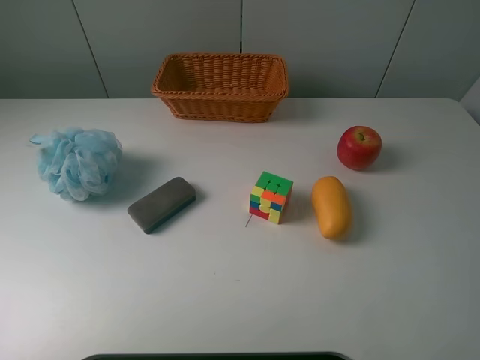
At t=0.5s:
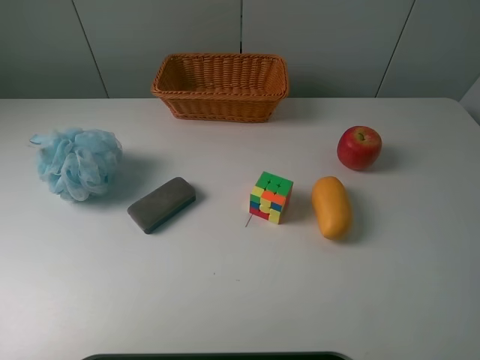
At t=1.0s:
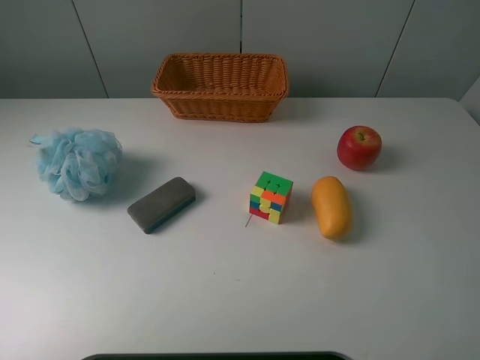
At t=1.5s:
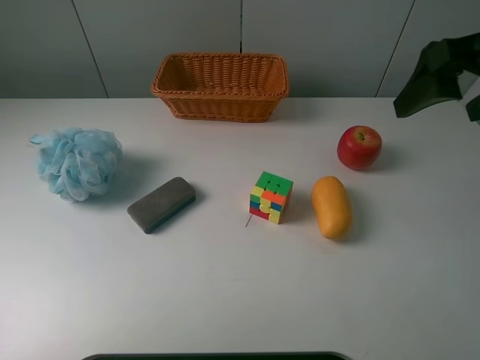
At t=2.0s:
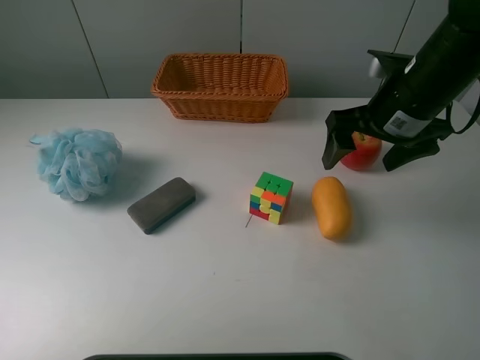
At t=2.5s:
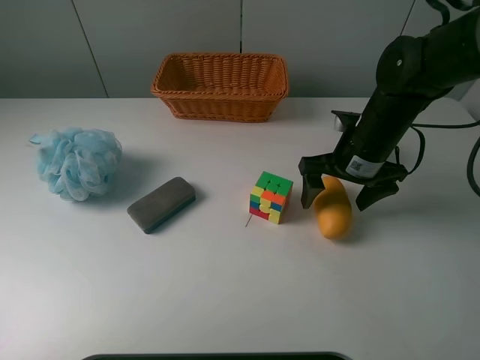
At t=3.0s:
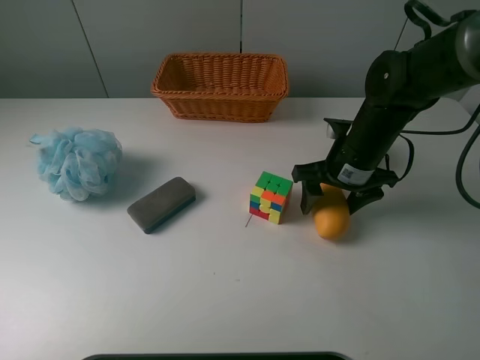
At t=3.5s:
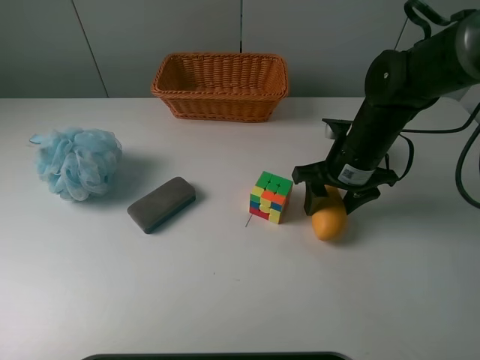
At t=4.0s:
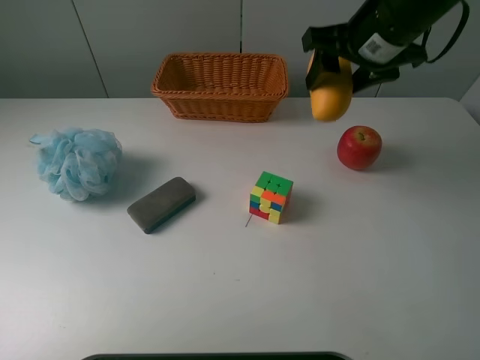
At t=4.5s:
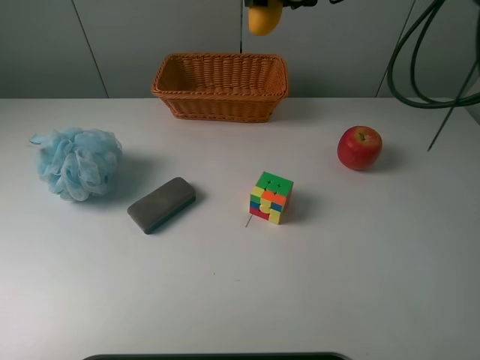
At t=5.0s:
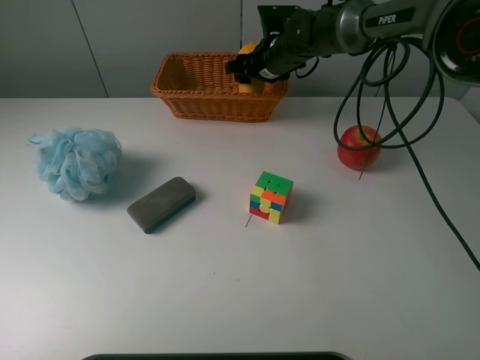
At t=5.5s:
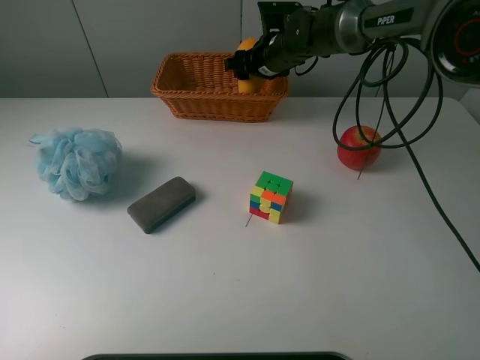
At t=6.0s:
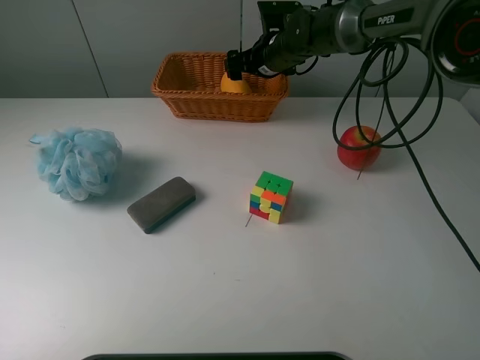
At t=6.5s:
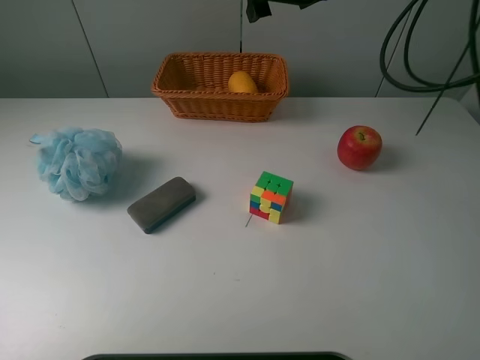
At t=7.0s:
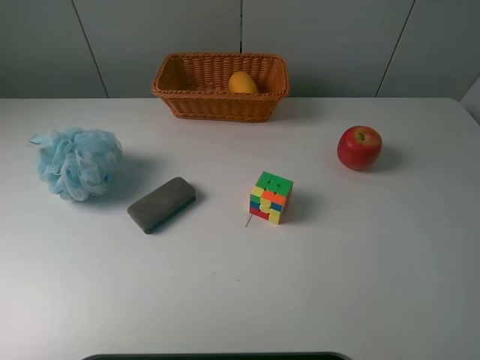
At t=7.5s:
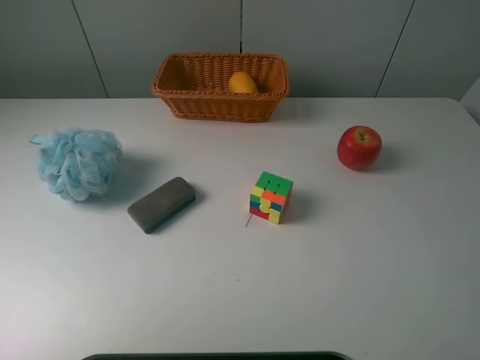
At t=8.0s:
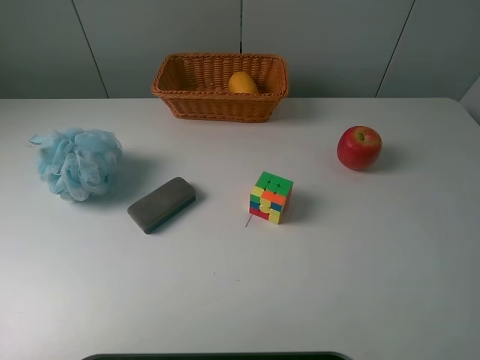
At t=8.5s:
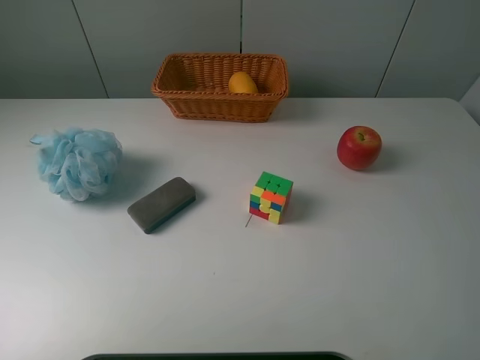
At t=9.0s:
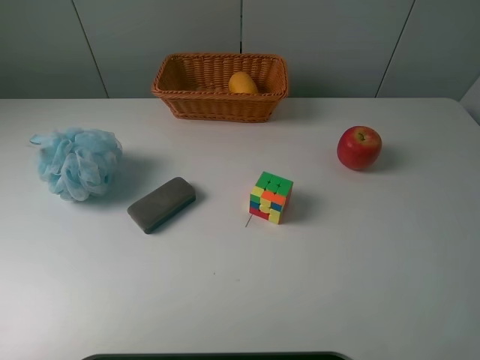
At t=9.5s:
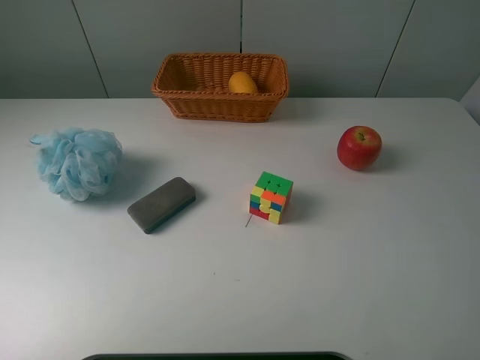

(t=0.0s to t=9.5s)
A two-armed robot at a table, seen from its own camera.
Task of the whole recording: use a picker to grab the item closest to the cube and place it in the basket.
Step, t=0.0s - t=3.0s: Grasp the mango with the right gripper.
Step, t=3.5s - t=6.0s: Place the mango into the basket with the right gripper.
t=0.0s - t=2.0s: The right gripper moves forward, some 30 cm.
t=2.0s - t=4.0s: The right gripper is displaced upward and forward by roughly 10 cm, and closes up.
t=4.0s - t=5.5s: The right gripper goes approximately 25 cm forward, downward and to the left.
t=5.5s - t=7.5s: The right gripper moves backward, upward and to the right, roughly 50 cm, and opens.
